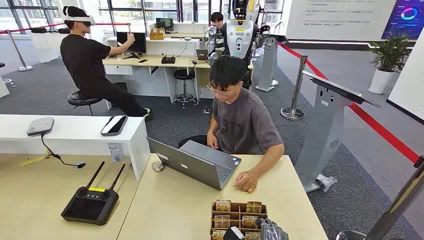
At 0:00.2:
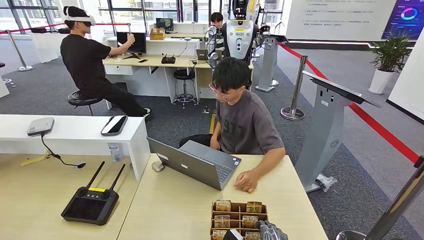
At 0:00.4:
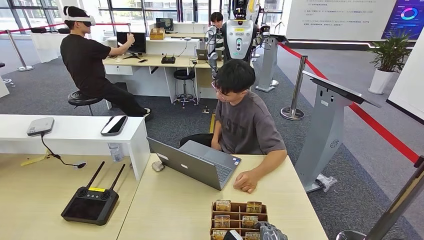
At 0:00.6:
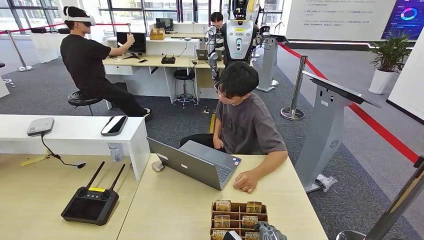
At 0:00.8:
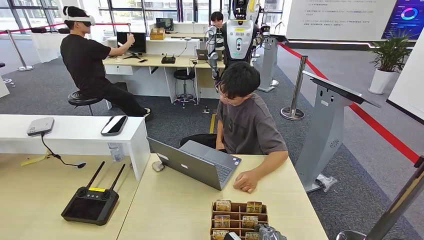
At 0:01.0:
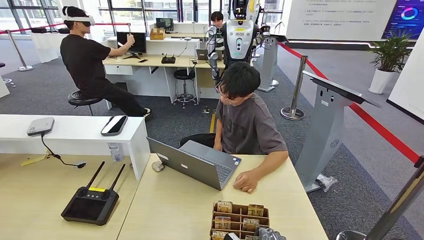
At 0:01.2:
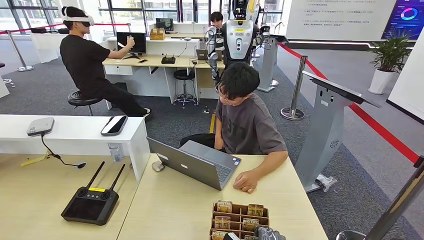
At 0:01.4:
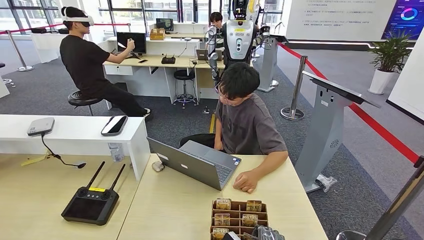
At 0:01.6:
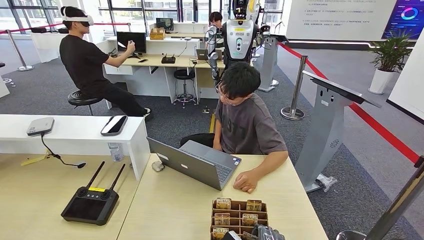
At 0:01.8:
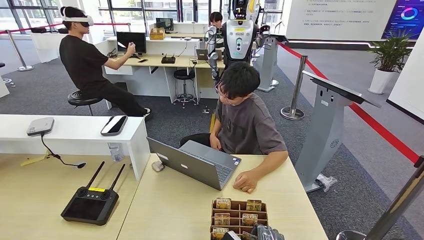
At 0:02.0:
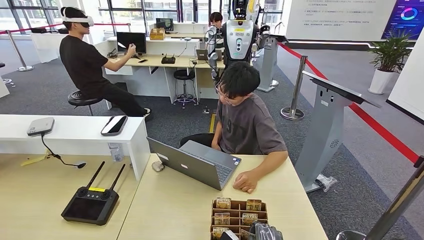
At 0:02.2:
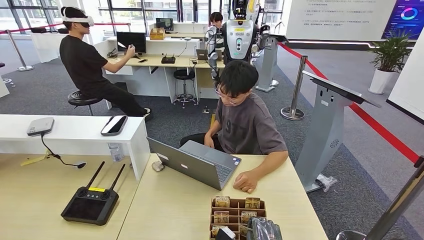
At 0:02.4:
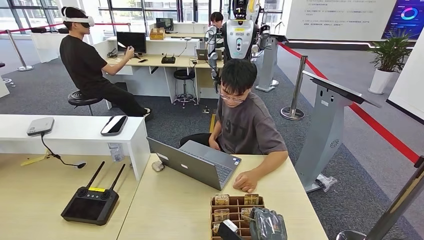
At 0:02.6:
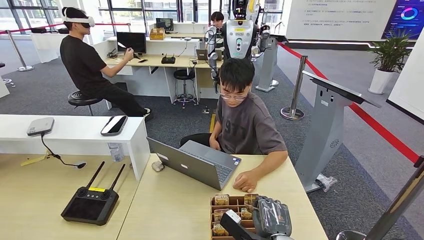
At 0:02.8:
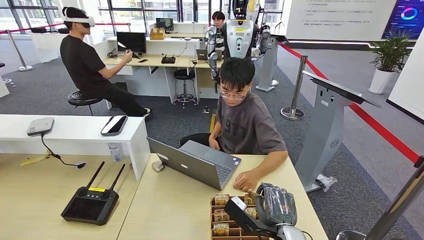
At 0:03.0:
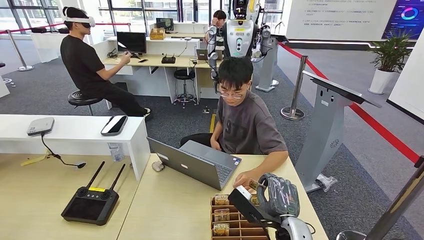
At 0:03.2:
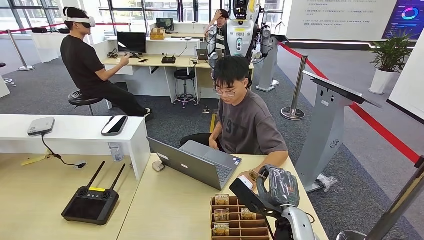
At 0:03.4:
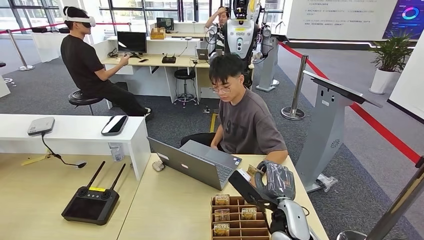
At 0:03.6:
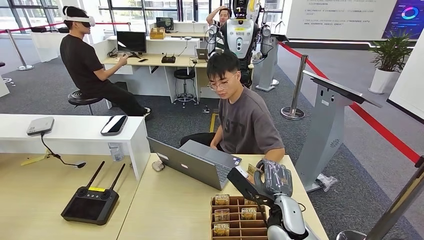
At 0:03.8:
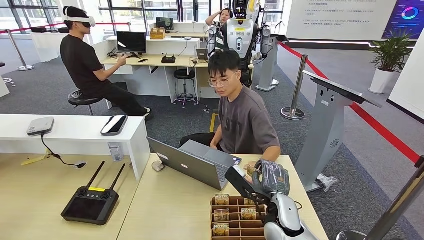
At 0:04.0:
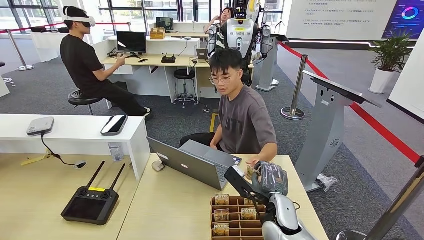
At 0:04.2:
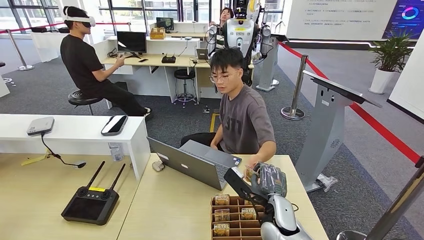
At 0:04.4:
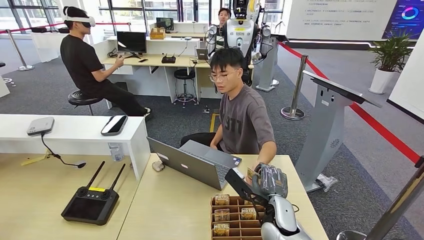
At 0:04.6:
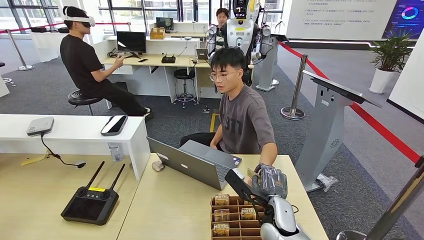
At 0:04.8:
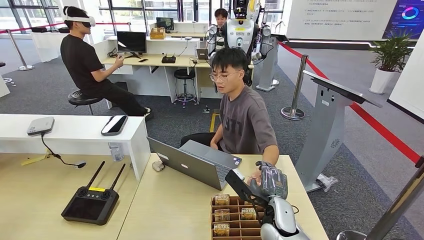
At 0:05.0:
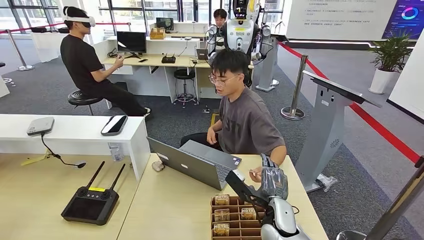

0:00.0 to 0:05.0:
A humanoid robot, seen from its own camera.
Step, 0:00.0 to 0:01.2: Pick up the room card from the card holder.
Step, 0:03.6 to 0:04.8: Hand the room card to the target.
0:01.6 to 0:03.4: The right hand heads upward and forward, covering roughly 15 cm.
0:03.4 to 0:05.0: The hands make only small movements.

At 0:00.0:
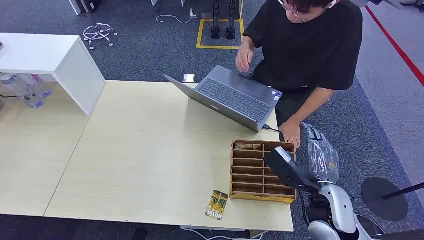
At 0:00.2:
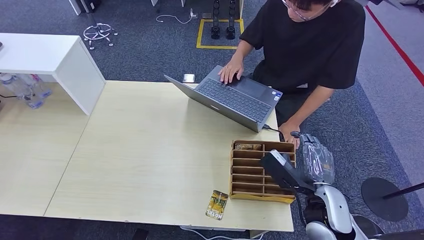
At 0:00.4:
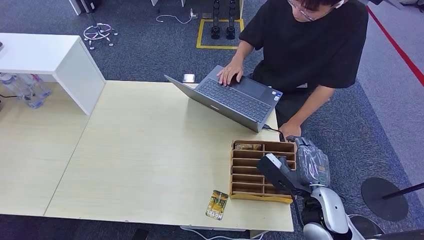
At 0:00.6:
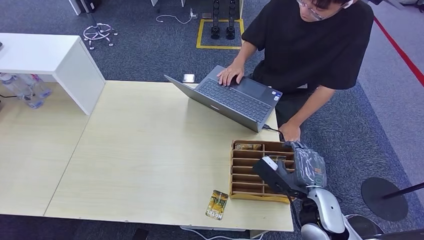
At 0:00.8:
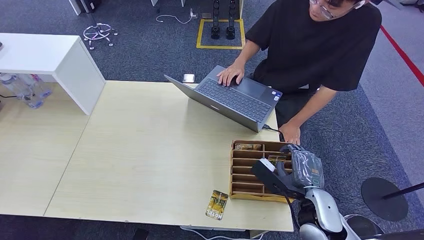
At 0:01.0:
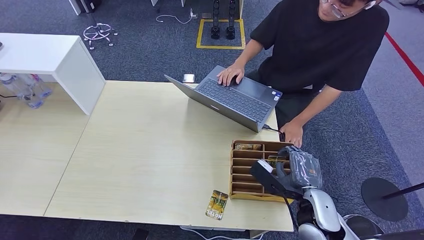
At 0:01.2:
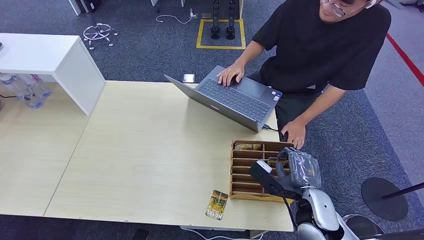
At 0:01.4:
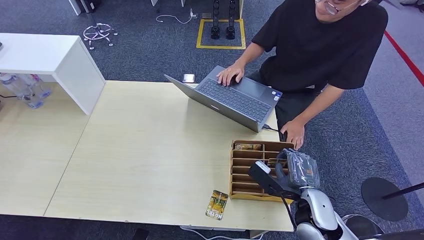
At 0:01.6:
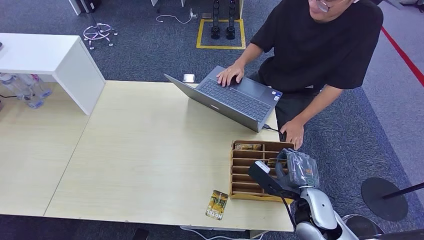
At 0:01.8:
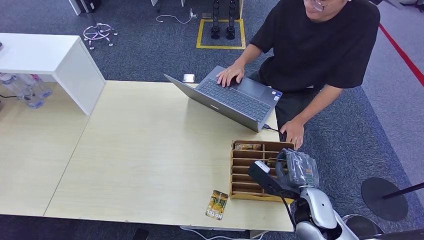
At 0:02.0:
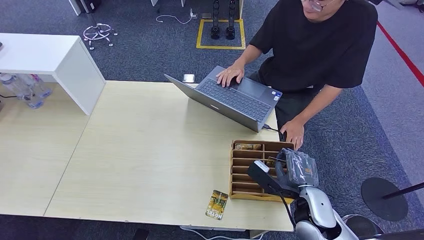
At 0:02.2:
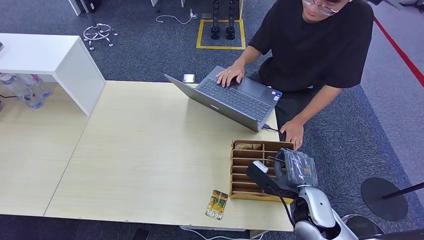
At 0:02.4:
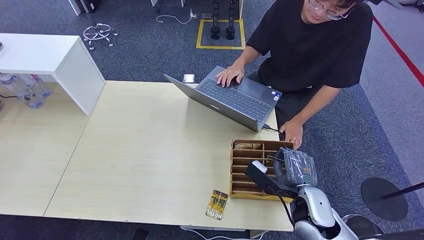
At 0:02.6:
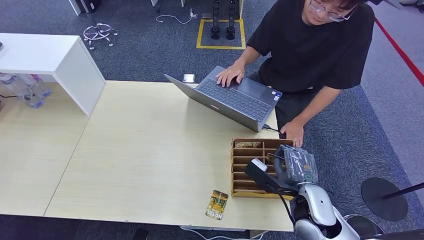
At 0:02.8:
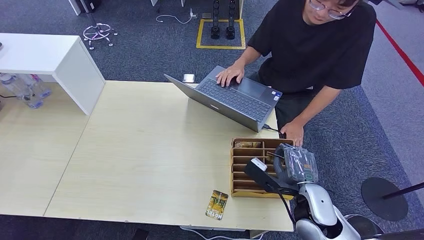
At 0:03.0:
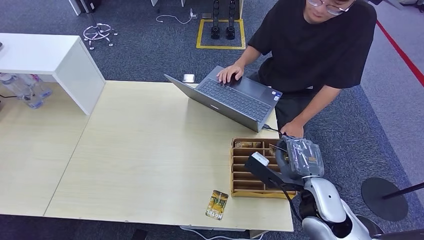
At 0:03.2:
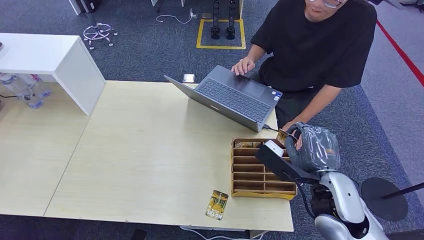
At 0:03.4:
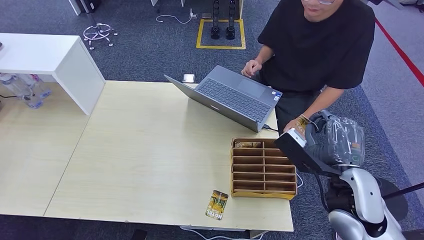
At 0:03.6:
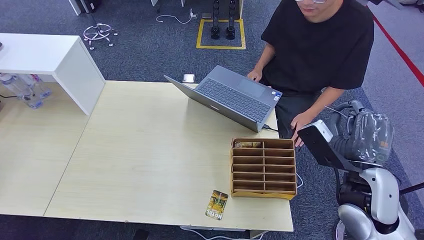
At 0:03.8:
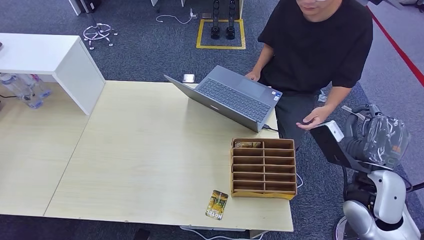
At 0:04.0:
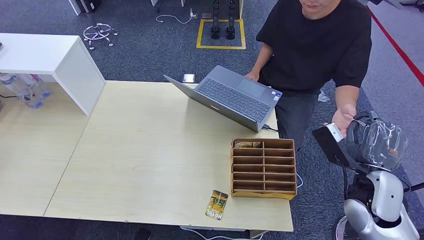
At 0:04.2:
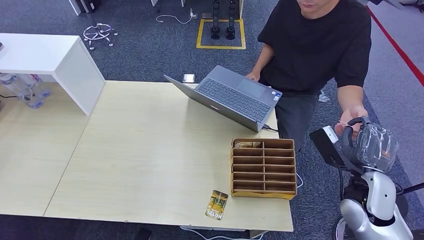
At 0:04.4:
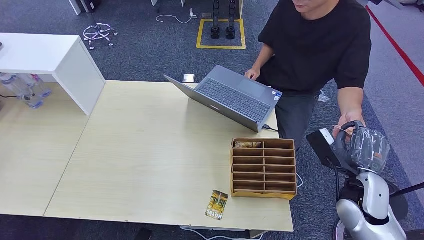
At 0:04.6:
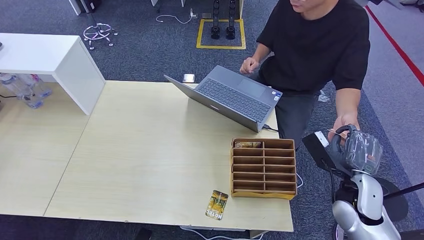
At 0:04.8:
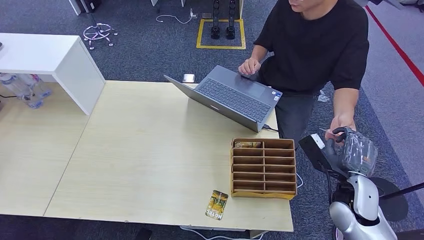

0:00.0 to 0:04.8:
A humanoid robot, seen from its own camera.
Step, 0:00.0 to 0:02.8: Pick up the room card from the card holder.
Step, 0:03.0 to 0:04.8: Hand the room card to the target.
0:01.6 to 0:03.2: The right hand shifts about 15 cm upward.
0:03.2 to 0:04.8: The right hand moves downward, approximately 15 cm.
